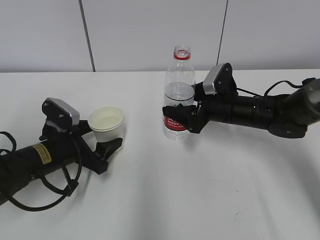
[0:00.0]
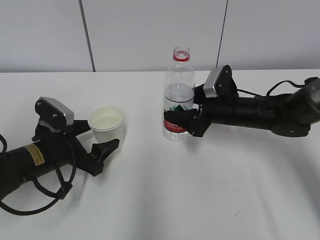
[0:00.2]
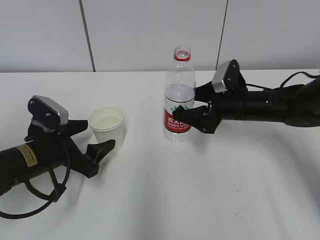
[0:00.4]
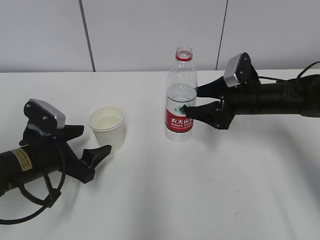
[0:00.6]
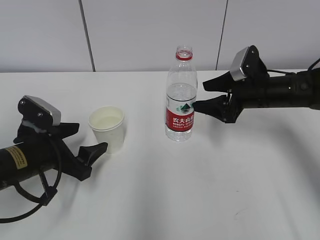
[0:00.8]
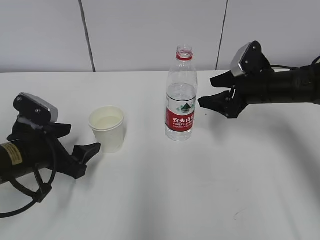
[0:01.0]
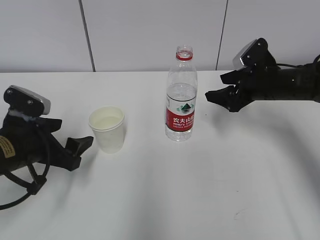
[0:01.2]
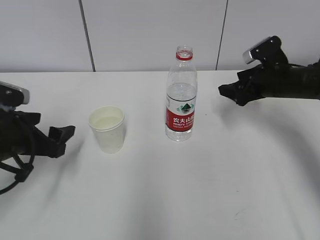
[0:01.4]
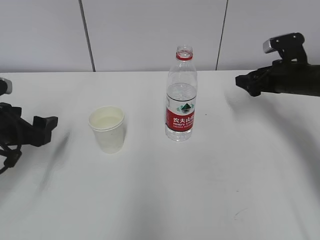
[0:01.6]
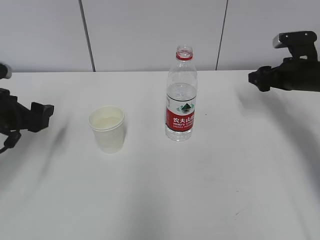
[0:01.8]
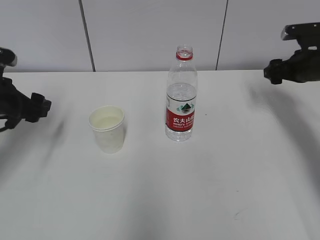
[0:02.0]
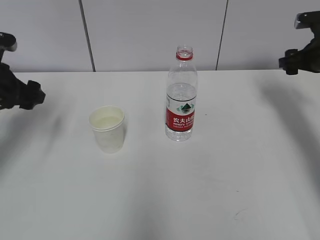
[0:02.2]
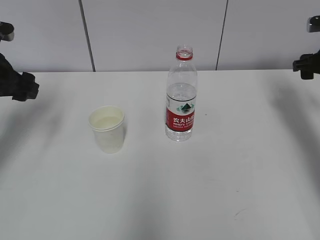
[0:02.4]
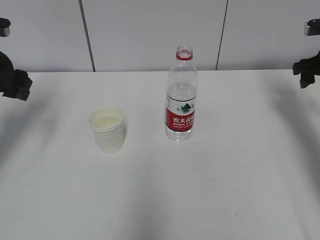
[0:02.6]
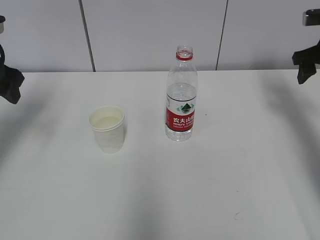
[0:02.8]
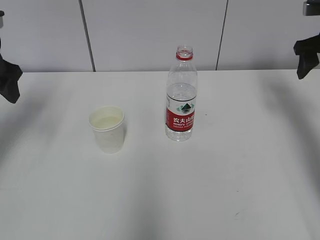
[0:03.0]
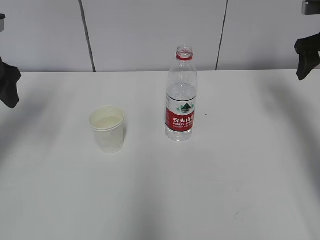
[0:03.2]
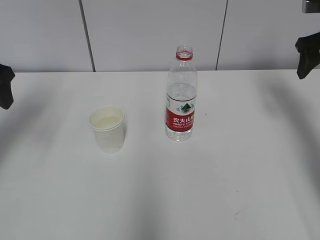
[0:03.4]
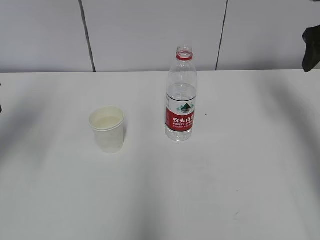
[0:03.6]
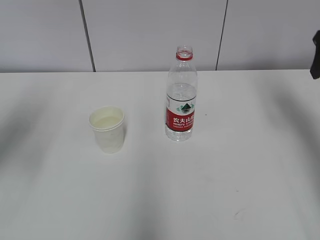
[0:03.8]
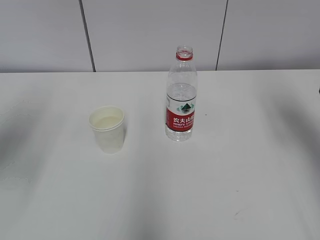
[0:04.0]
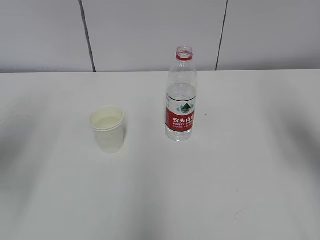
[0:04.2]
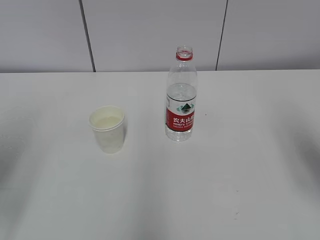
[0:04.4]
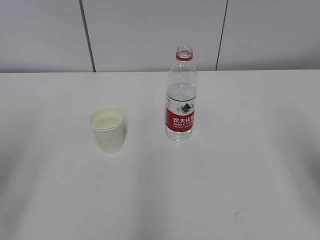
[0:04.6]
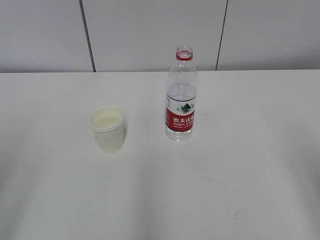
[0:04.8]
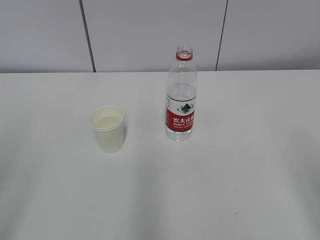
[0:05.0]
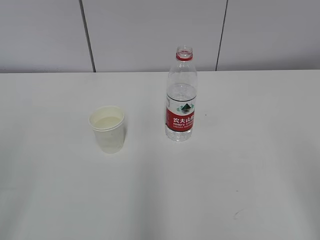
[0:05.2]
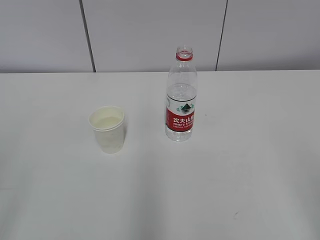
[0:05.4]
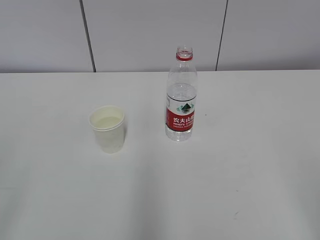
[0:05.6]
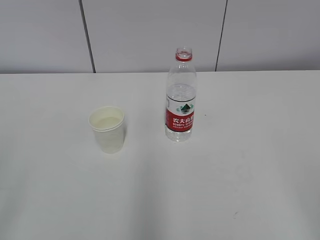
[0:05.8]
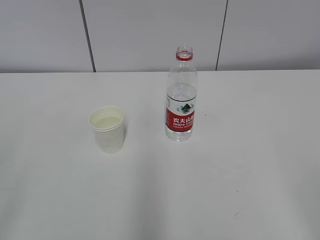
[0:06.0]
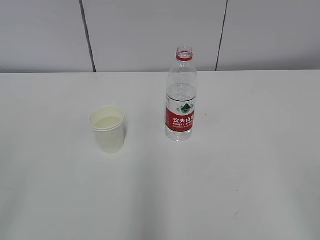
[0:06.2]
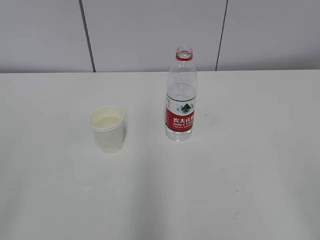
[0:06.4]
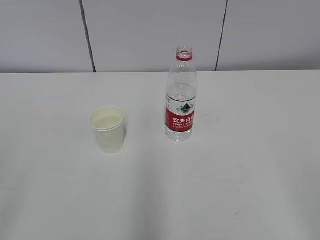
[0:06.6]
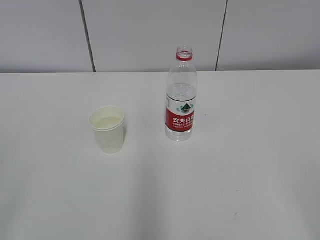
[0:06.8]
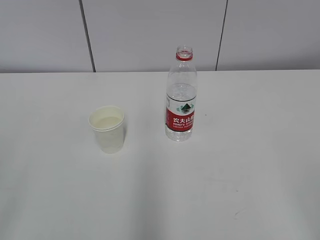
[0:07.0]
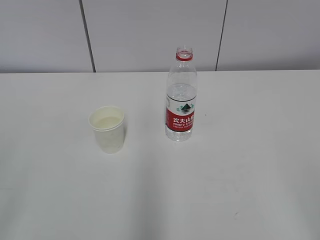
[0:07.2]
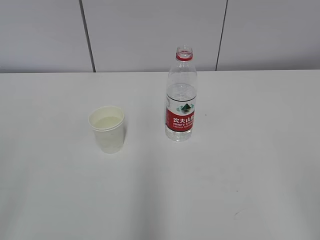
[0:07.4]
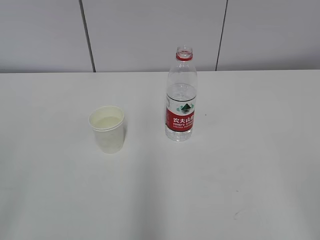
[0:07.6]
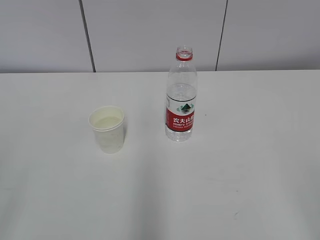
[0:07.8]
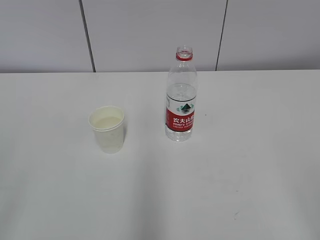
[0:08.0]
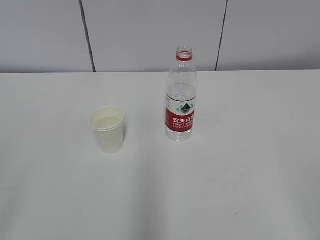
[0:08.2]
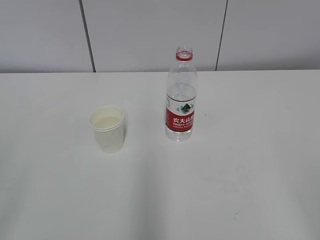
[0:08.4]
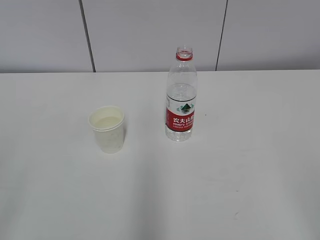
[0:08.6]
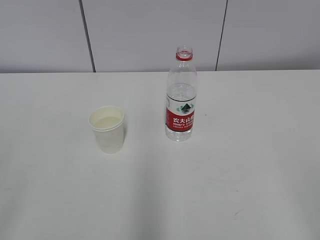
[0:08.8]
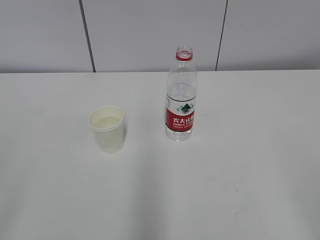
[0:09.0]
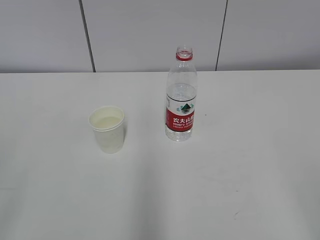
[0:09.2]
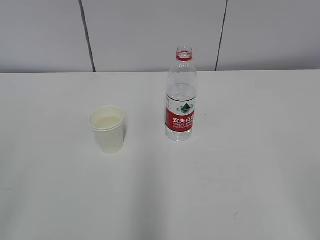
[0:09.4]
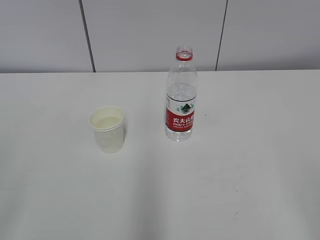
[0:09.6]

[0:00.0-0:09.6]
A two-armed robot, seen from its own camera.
0:00.0 to 0:01.6: The left gripper heads to the left and upward, covering roughly 10 cm; the right gripper travels to the right by some 15 cm.
0:01.6 to 0:03.2: The right gripper shifts approximately 10 cm upward; the left gripper goes about 15 cm upward and forward.
0:03.2 to 0:04.8: The grippers both shift backward by some 30 cm.
0:06.4 to 0:09.6: Neither gripper changes place.

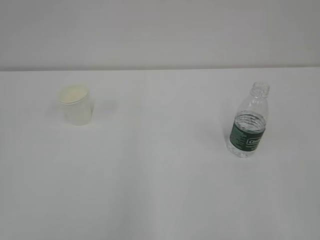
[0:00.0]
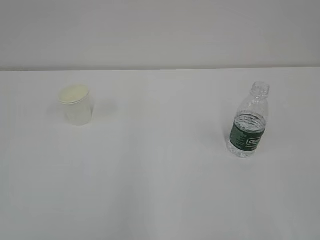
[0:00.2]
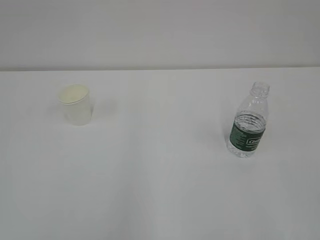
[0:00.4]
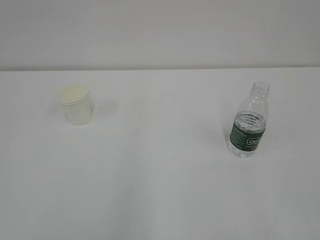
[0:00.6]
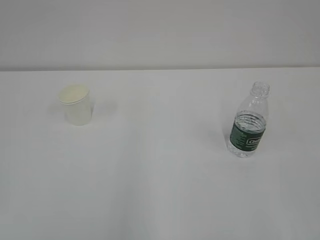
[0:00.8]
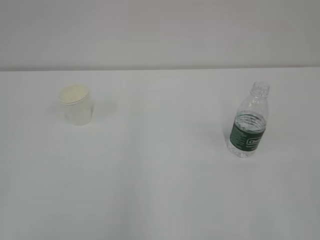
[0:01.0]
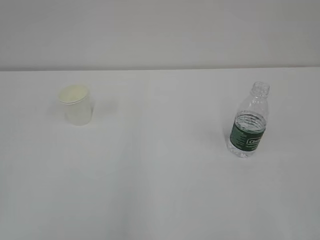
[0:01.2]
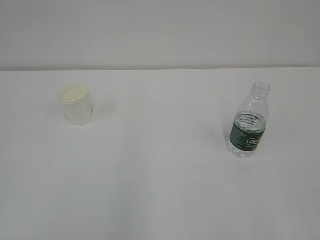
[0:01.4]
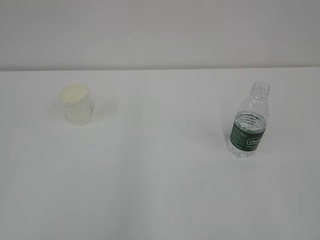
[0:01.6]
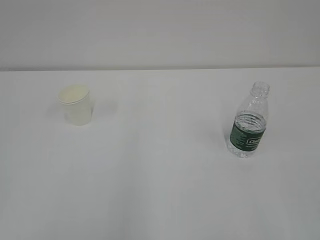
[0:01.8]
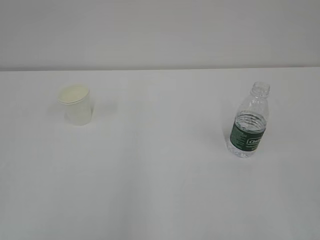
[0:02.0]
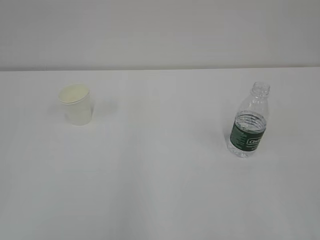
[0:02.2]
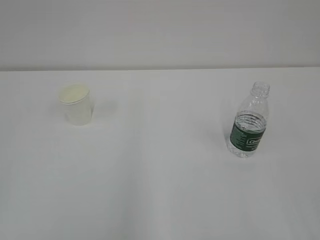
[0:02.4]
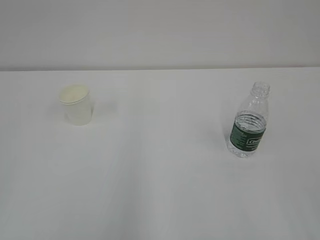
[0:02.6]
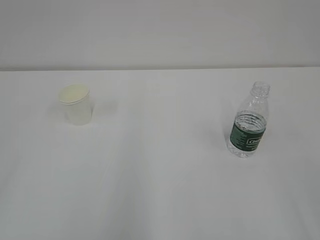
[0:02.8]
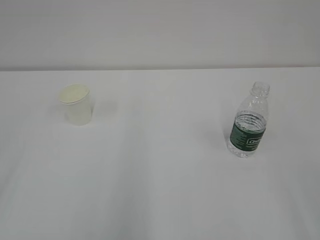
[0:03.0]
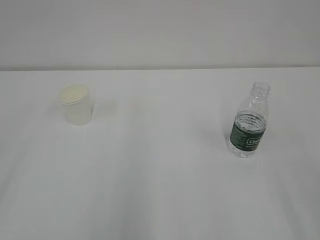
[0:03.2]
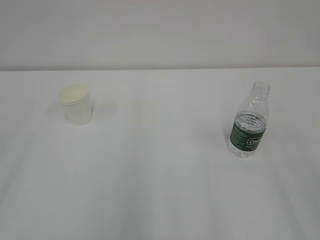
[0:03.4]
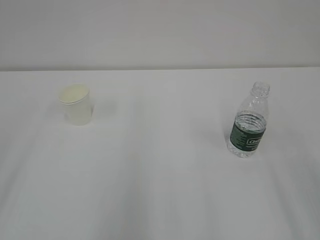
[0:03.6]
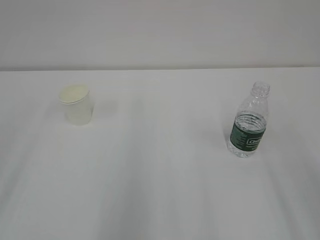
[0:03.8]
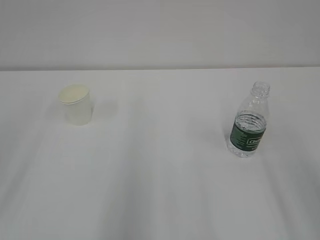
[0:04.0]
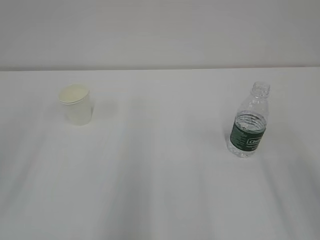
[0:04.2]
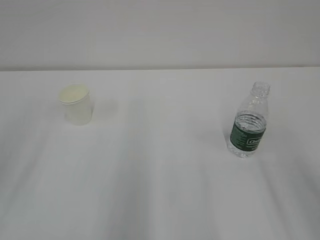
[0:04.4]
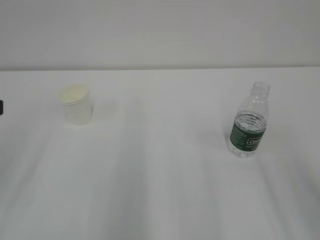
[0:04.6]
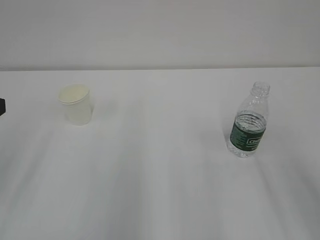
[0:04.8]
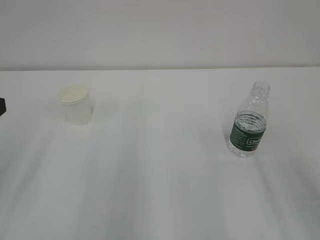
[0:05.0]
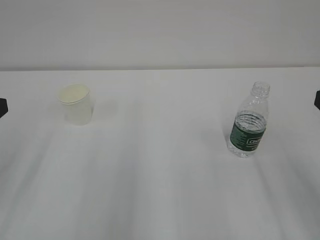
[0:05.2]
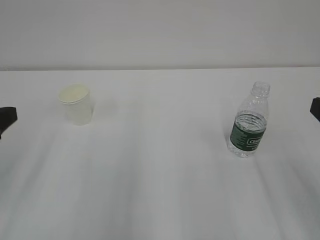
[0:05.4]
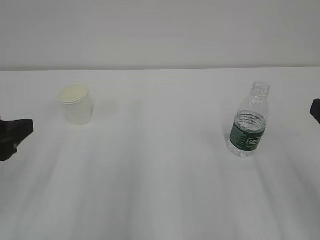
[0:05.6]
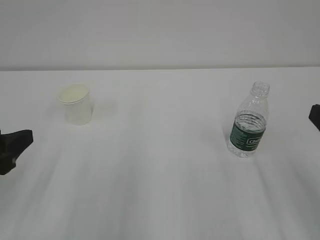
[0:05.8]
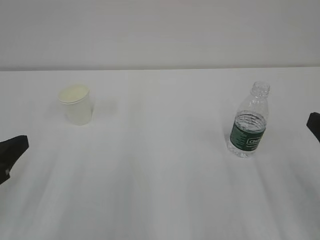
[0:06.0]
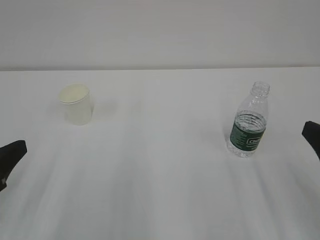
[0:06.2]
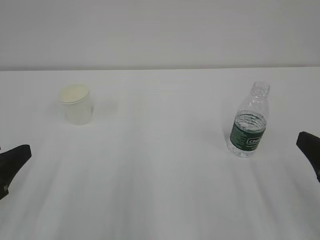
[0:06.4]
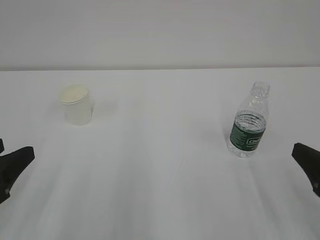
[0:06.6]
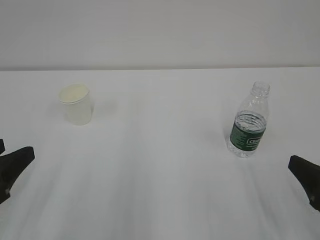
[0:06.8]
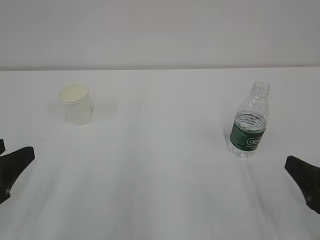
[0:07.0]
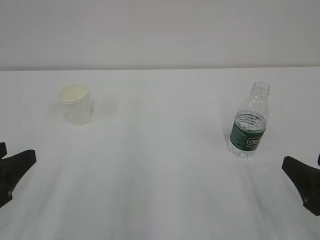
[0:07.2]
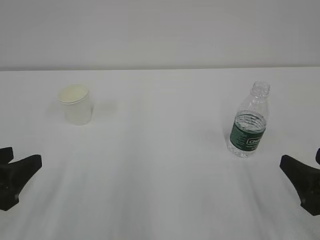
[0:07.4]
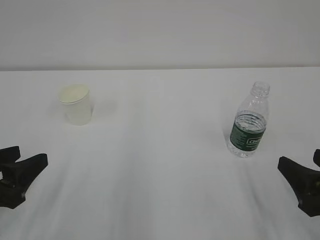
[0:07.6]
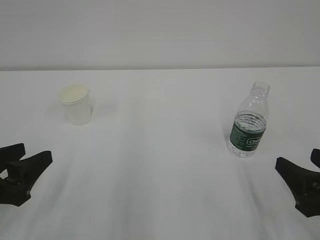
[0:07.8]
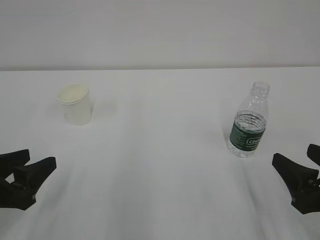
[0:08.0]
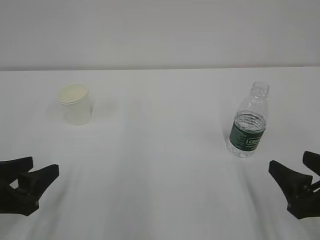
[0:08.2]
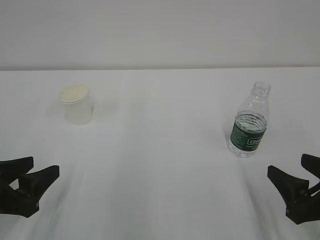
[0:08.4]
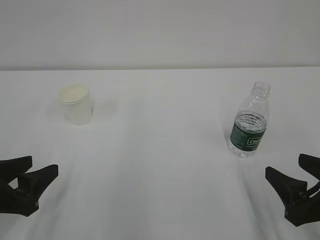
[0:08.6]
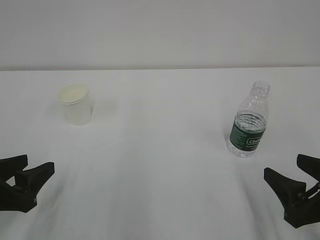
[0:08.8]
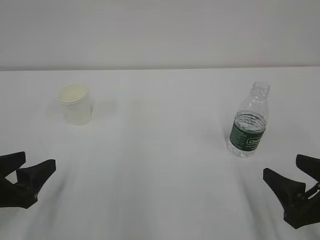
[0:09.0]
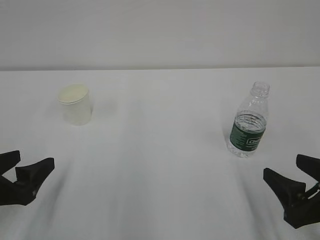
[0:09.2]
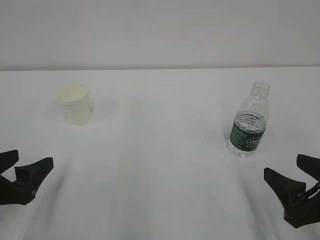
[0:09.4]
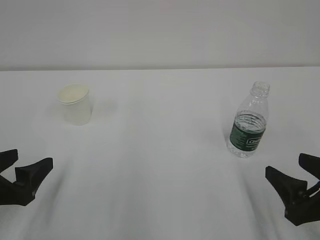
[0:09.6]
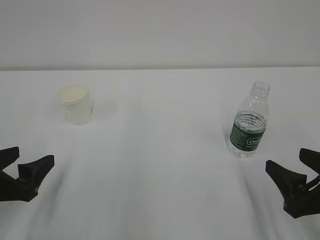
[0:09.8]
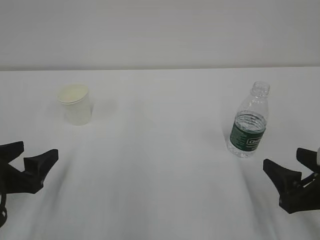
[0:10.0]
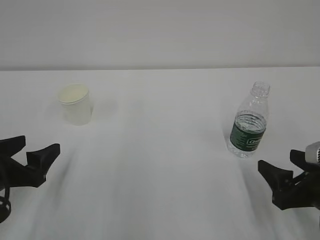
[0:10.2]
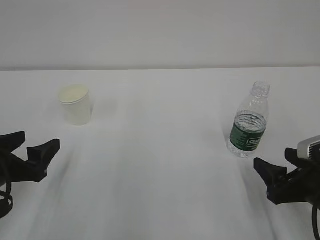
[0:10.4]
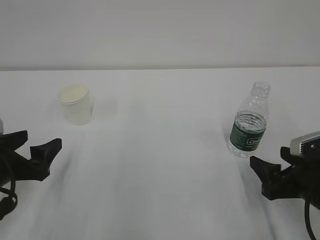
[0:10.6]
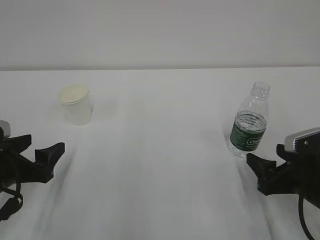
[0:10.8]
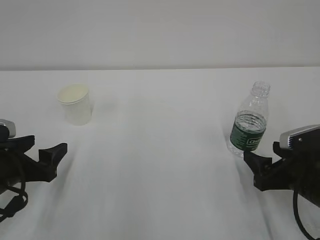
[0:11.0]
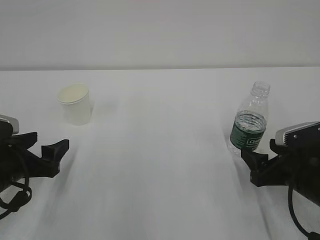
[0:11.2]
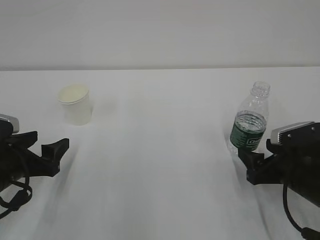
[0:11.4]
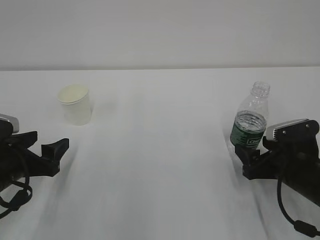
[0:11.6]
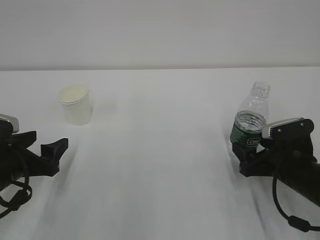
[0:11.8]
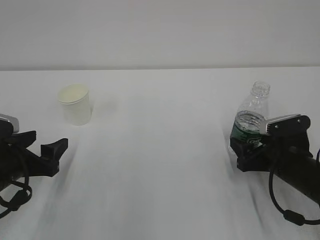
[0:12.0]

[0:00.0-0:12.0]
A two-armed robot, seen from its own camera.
0:04.4 to 0:06.0: The left gripper travels downward by approximately 10 cm.
0:06.0 to 0:07.6: The right gripper moves downward, about 5 cm.
0:07.6 to 0:09.0: The left gripper opens up.
0:09.0 to 0:10.4: The grippers move only a little.
0:10.4 to 0:12.0: The right gripper shifts approximately 10 cm forward.

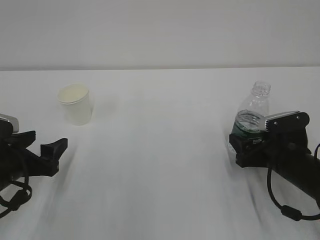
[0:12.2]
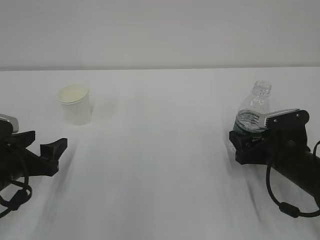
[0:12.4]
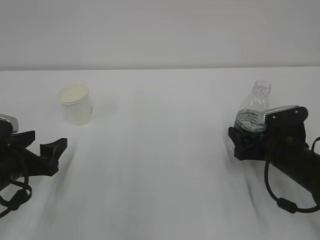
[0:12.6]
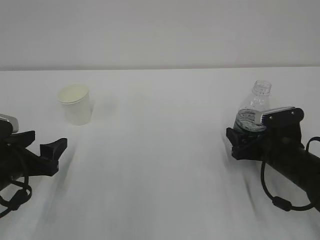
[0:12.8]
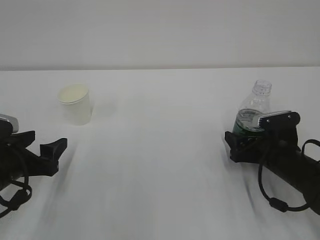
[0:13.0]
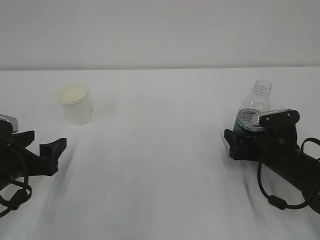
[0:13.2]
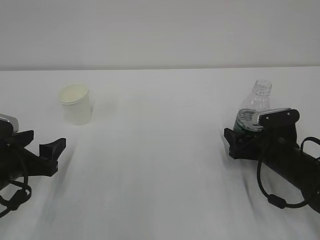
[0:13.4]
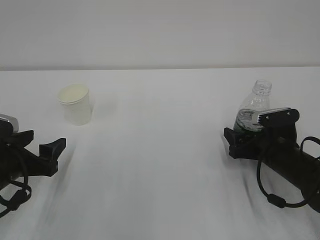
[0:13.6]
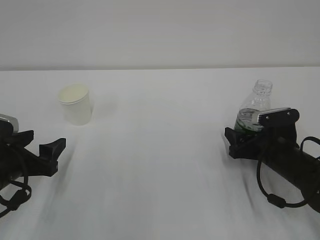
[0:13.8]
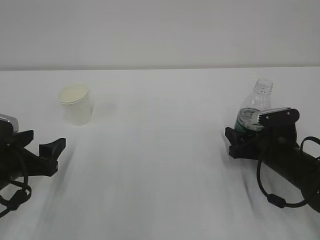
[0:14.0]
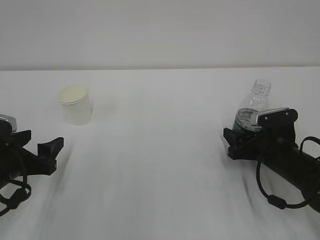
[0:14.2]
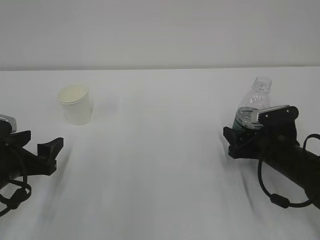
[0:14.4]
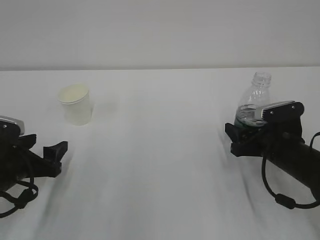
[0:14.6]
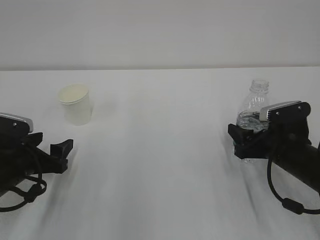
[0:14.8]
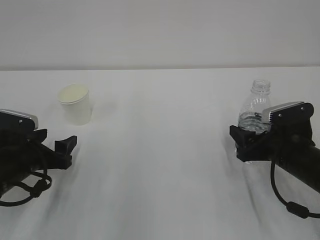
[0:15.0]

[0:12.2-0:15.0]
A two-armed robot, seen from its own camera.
0:12.2 to 0:13.6: The grippers stay close to where they were, moving slightly.
0:13.6 to 0:15.0: The right gripper closes.
